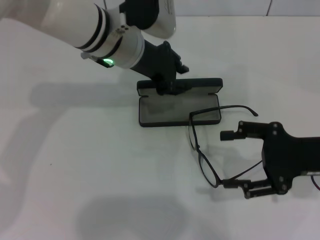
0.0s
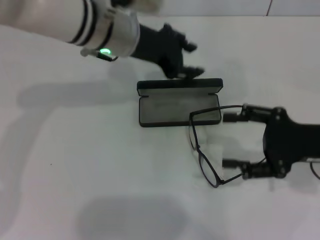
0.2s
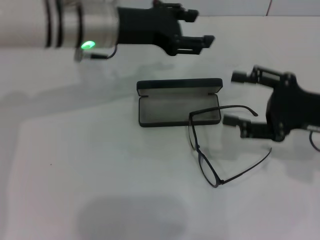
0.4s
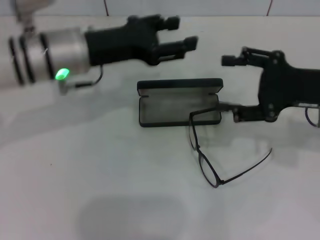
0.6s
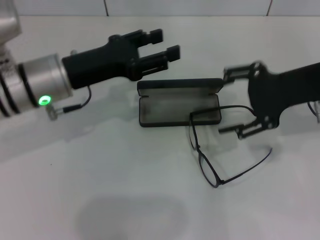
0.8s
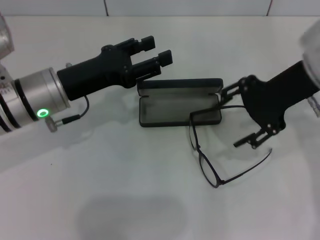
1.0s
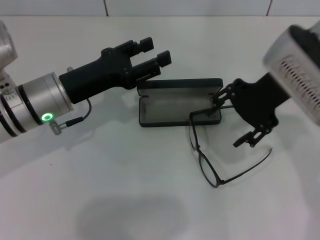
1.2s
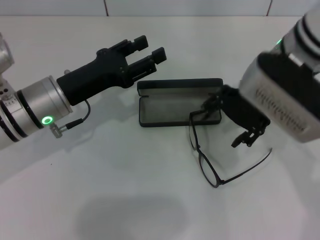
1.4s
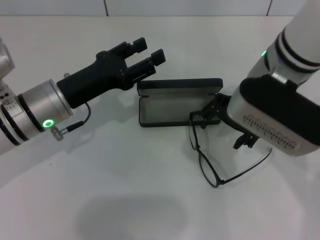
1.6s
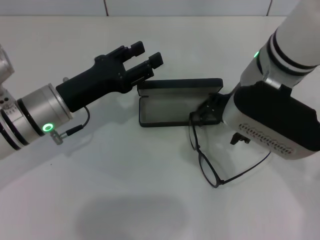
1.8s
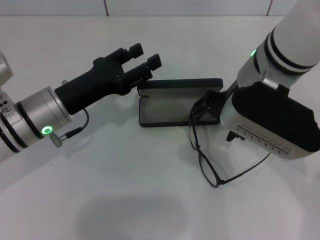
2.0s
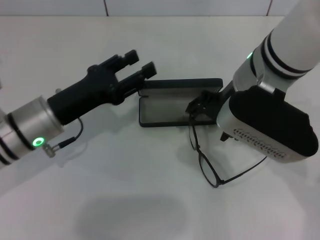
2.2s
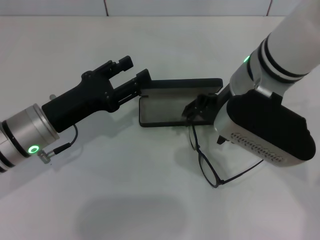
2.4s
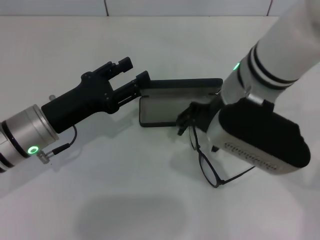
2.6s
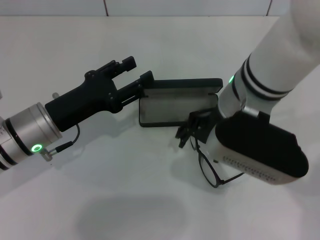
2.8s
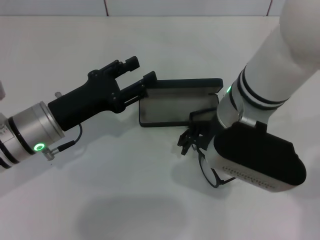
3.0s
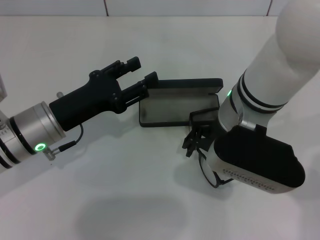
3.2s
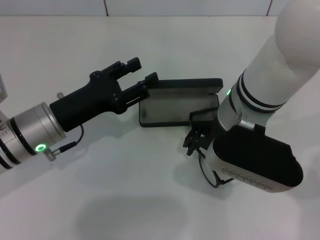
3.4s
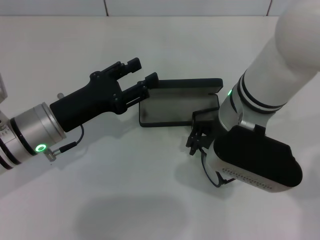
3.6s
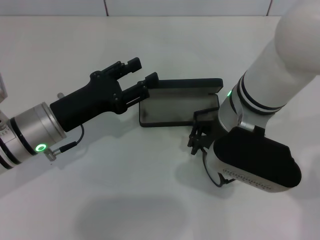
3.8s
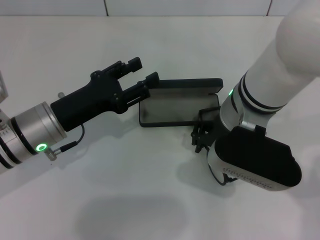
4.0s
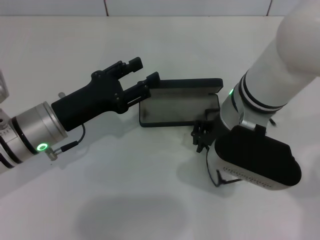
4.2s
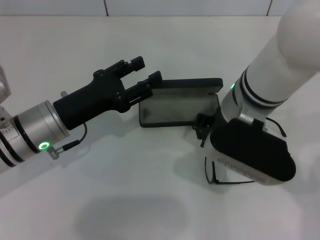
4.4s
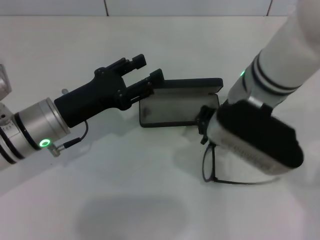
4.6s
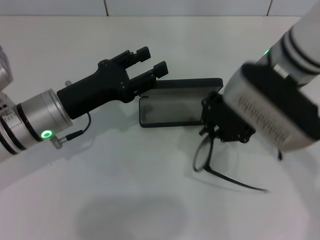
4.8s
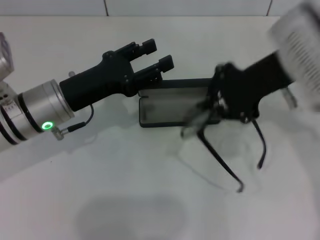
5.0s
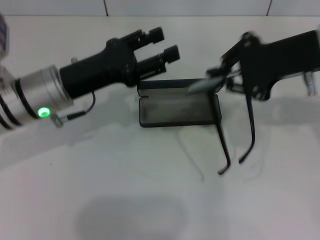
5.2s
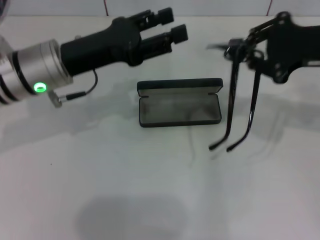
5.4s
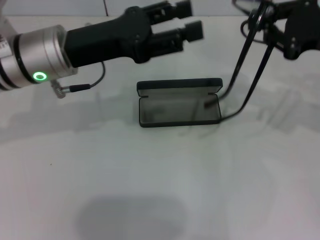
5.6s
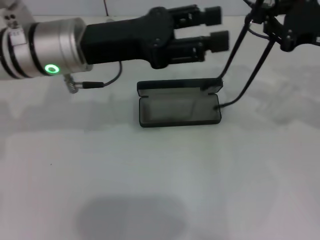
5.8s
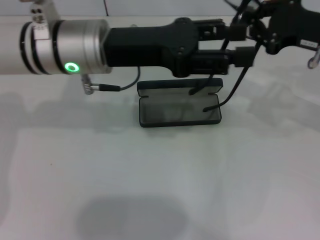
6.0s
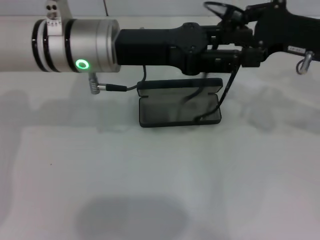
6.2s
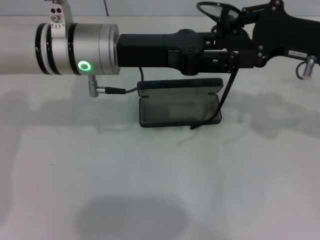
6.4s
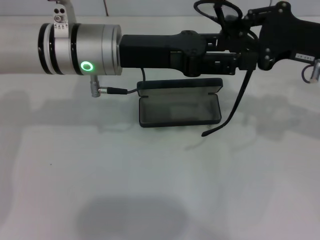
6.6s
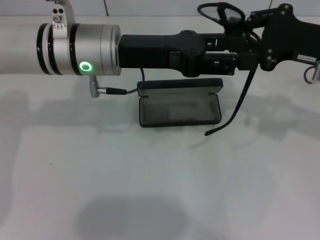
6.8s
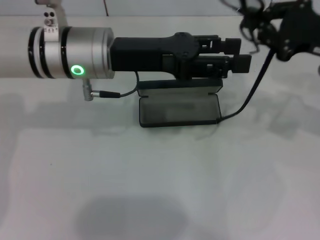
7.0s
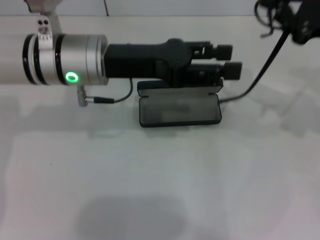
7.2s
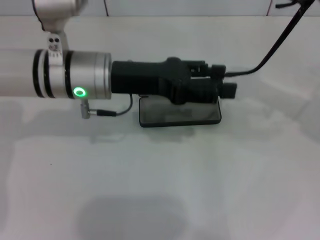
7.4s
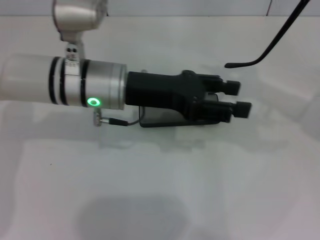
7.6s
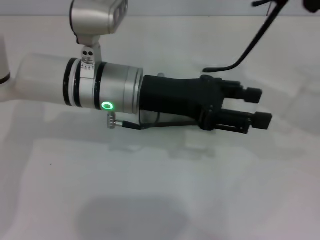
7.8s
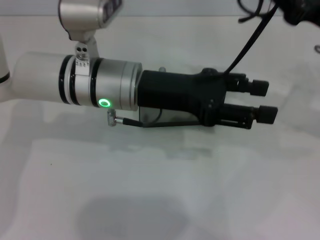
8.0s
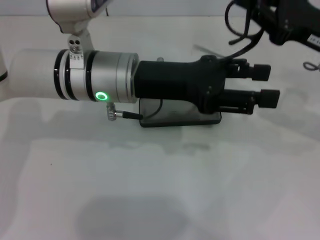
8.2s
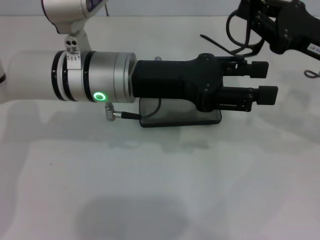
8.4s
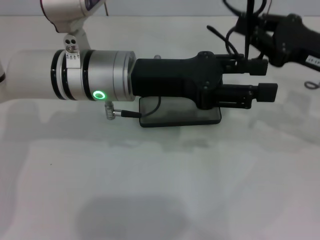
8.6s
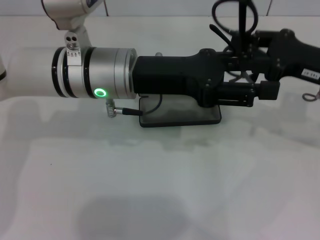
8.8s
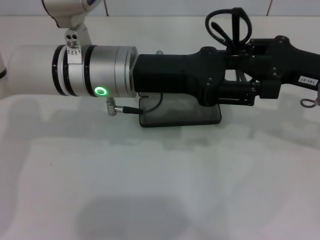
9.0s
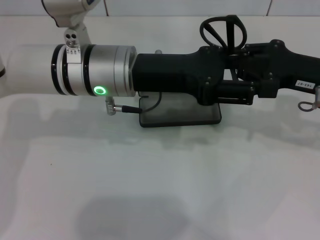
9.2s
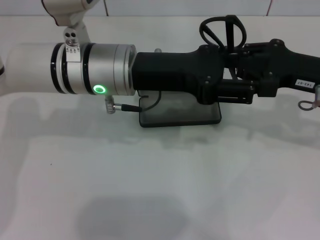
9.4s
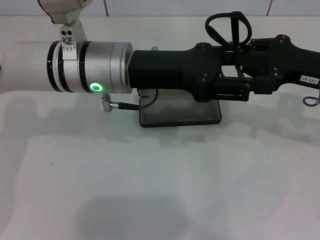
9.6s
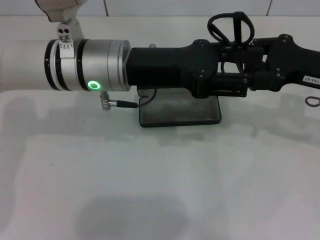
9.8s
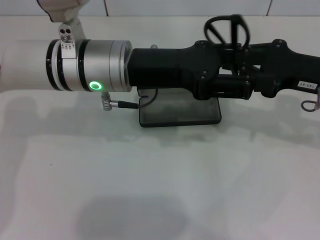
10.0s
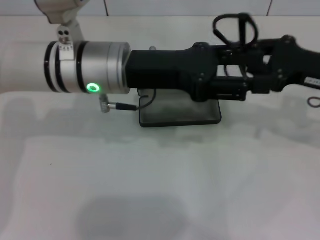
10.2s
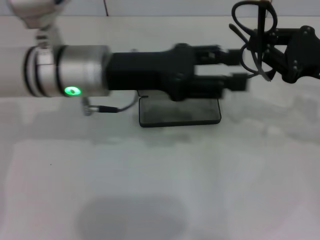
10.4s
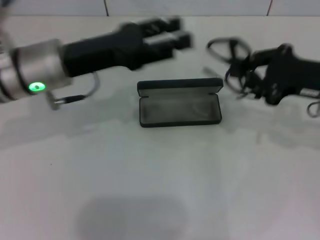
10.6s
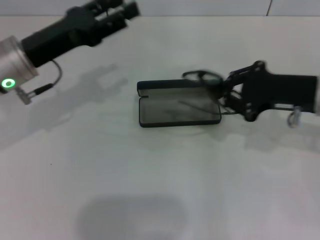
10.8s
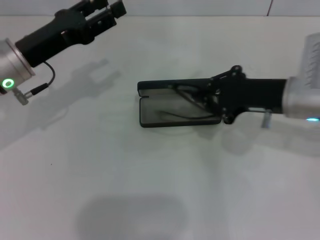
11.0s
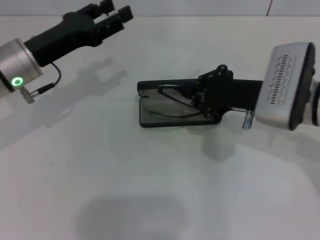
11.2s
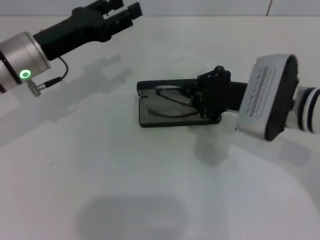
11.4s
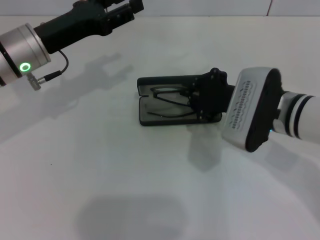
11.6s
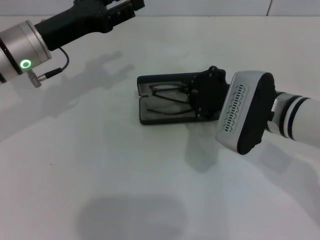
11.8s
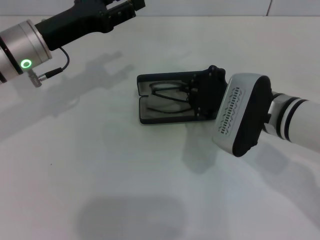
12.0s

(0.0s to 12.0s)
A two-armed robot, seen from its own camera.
Step, 0.2s - 4.4s: Grab the eyeglass frame with your right hand.
Step, 4.6s - 9.2s: Fold the frame with your left hand.
0.0s - 1.6s: The right gripper is displaced to the left, upward and forward by roughly 20 cm. The left gripper shifts approximately 15 cm to the left, backward and downward, and opens its fingers.
1.6s - 3.0s: The right gripper changes place by approximately 5 cm.
3.0s - 4.4s: The right gripper closes.
4.4s - 6.0s: The left gripper is displaced upward, to the right and forward by roughly 15 cm, while the right gripper moves to the right, about 20 cm.
6.0s - 7.6s: The right gripper shifts by some 5 cm.
7.6s - 9.0s: The right gripper heads downward, covering roughly 5 cm.
9.0s - 10.4s: There are only small adjustments of the grippers.
10.4s - 12.0s: The right gripper travels to the left by about 15 cm. Meanwhile the left gripper goes roughly 10 cm to the left.

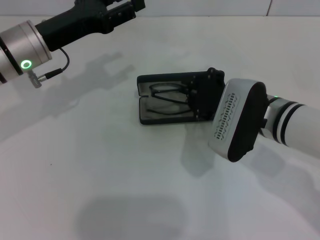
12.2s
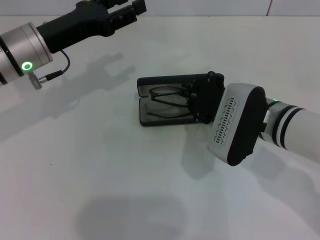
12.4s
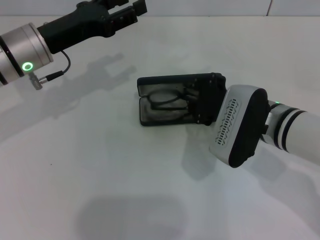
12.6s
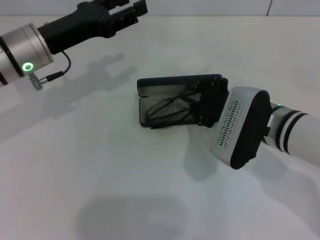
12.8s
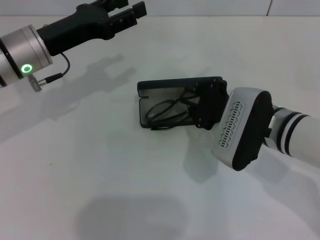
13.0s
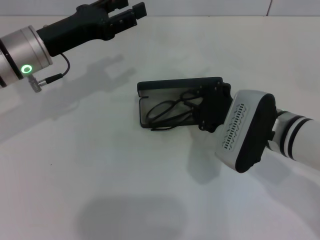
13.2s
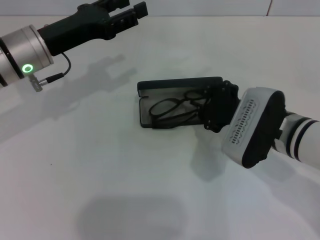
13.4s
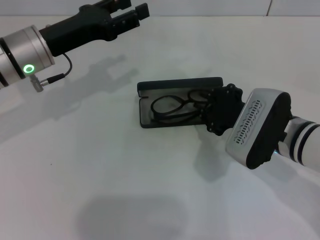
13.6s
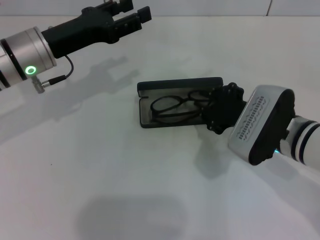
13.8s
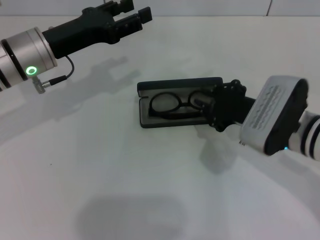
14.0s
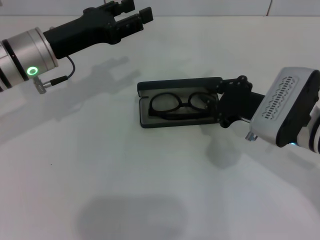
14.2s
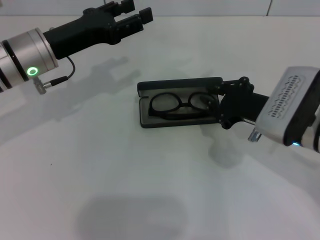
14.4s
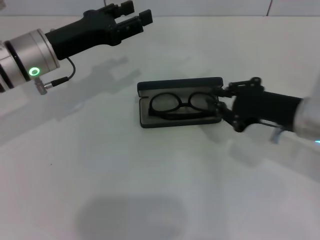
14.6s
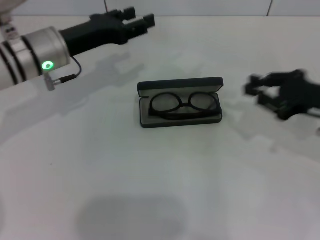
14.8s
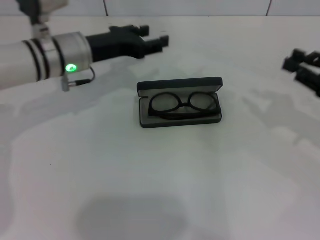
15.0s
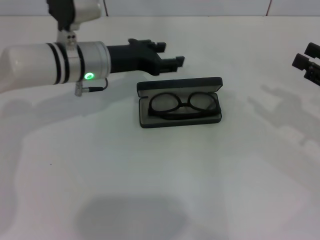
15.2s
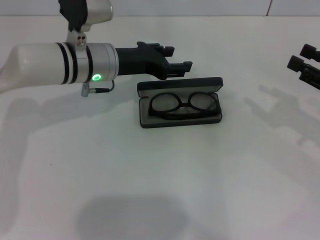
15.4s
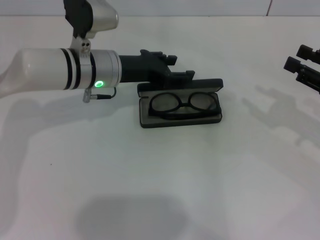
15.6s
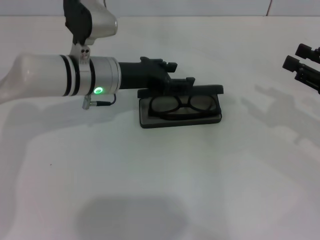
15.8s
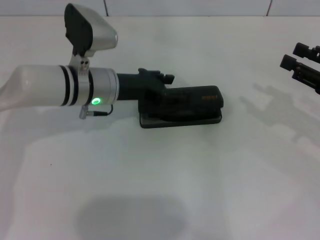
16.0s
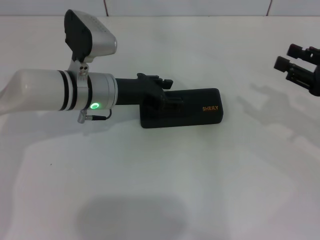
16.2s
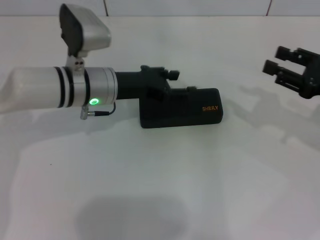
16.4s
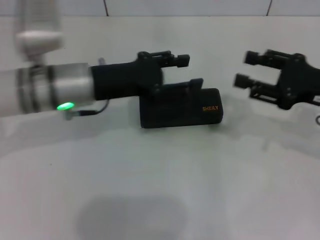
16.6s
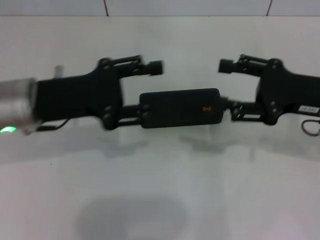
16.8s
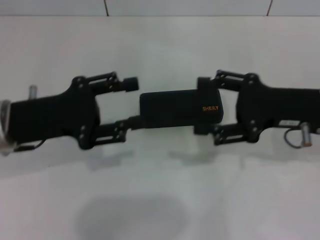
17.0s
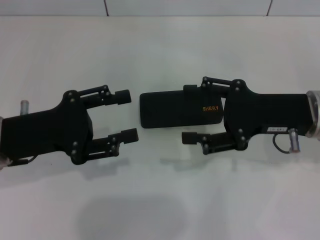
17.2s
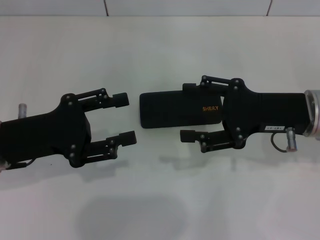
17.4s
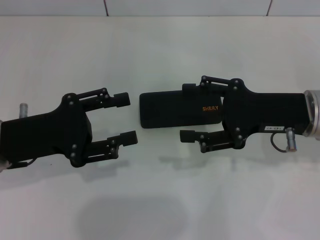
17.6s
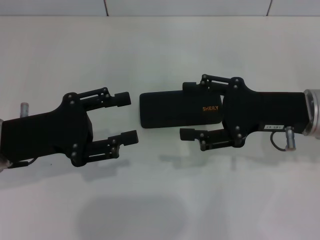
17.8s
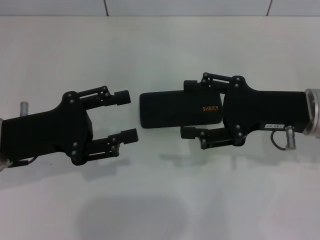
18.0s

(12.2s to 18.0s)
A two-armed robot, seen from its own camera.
Step, 12.2s - 14.2s: Put the glasses into the case with your right hand.
Step, 14.4s - 16.0s: Close the glasses case with your left hand.
12.2s - 13.6s: The grippers stay close to where they were, moving slightly.
13.6s - 15.0s: The left gripper changes place by roughly 5 cm, while the right gripper travels to the right by some 15 cm.
15.0s - 16.6s: The left gripper goes approximately 5 cm backward. Meanwhile the right gripper is displaced to the left by about 5 cm, and opens its fingers.
16.6s - 18.0s: The left gripper goes roughly 10 cm backward and to the left; the right gripper is displaced to the left by approximately 5 cm.
